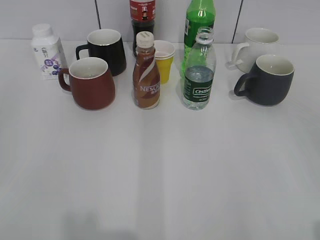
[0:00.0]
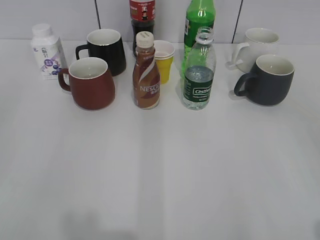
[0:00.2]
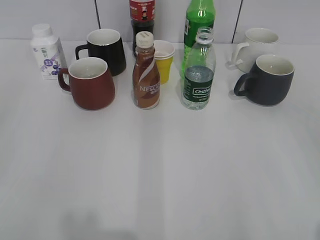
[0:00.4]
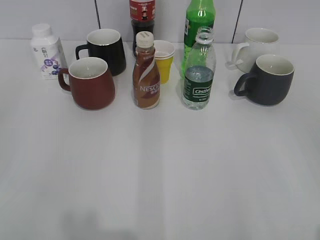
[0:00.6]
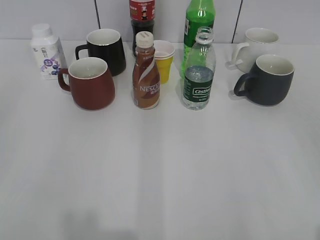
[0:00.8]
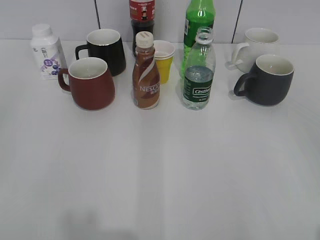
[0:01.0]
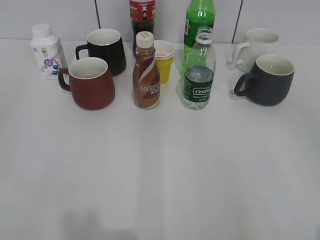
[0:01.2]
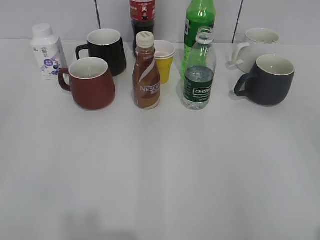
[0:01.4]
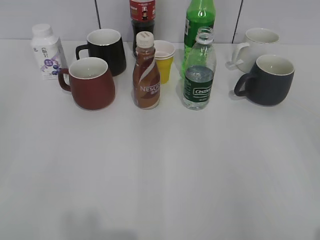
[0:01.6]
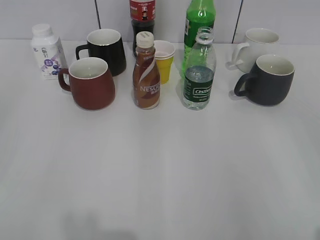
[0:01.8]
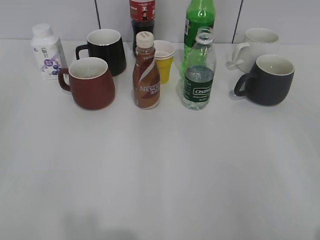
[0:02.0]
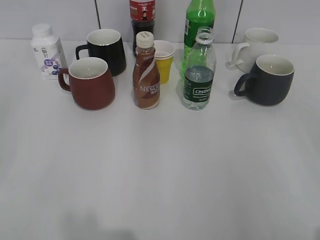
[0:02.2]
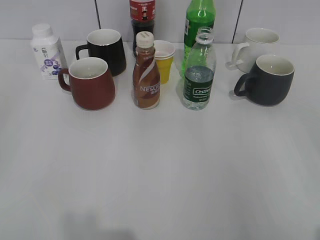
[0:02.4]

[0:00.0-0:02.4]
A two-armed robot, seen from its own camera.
0:01.2 to 0:02.4: The two grippers keep their place.

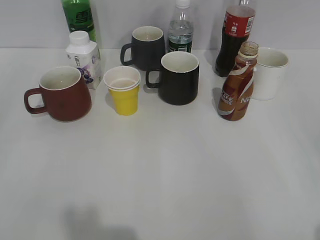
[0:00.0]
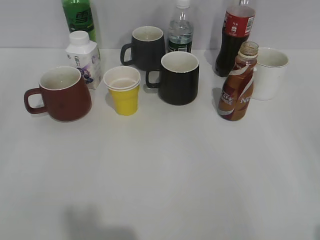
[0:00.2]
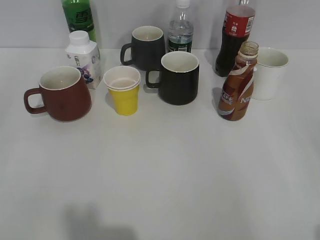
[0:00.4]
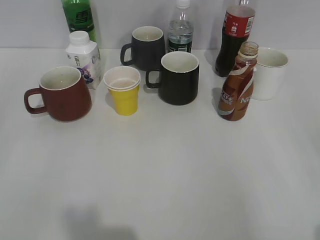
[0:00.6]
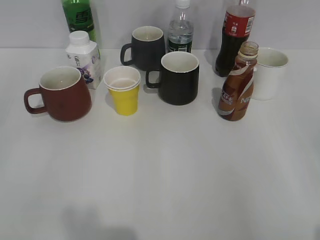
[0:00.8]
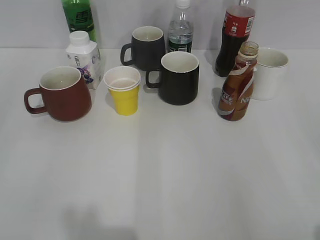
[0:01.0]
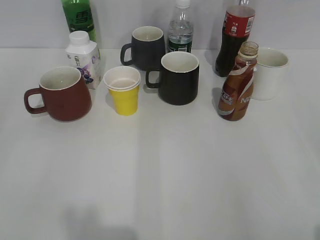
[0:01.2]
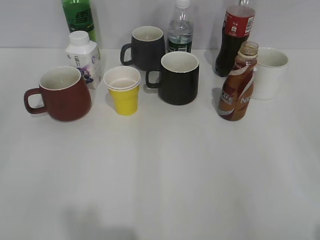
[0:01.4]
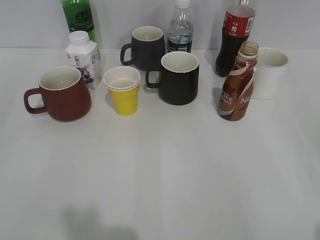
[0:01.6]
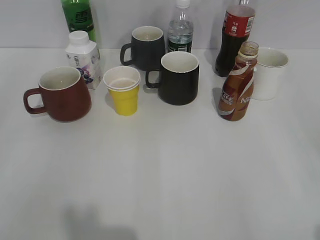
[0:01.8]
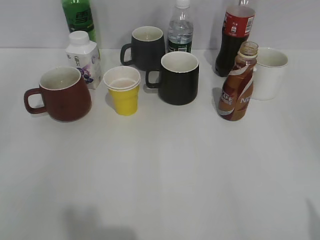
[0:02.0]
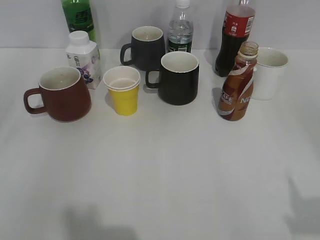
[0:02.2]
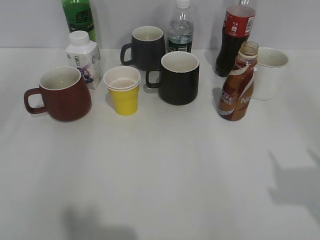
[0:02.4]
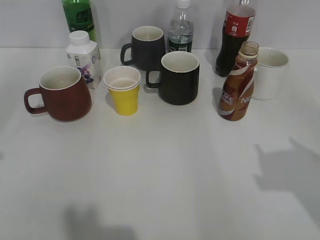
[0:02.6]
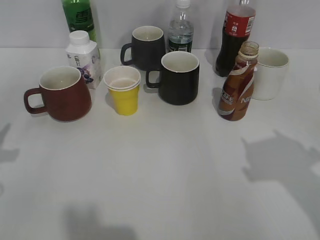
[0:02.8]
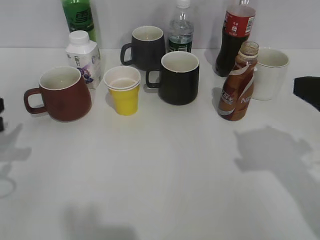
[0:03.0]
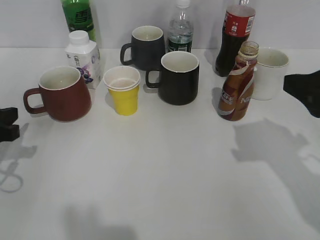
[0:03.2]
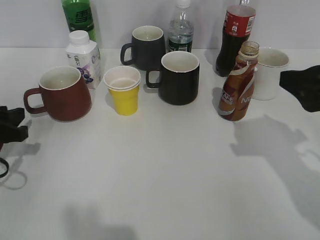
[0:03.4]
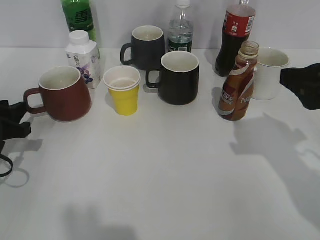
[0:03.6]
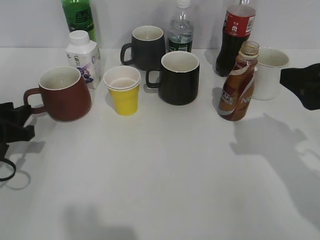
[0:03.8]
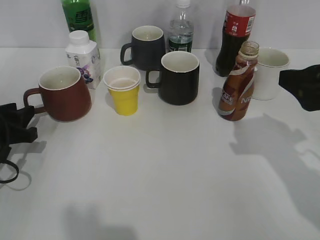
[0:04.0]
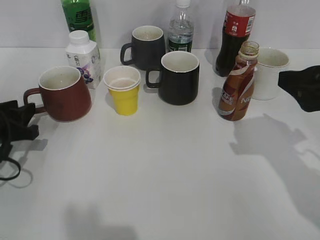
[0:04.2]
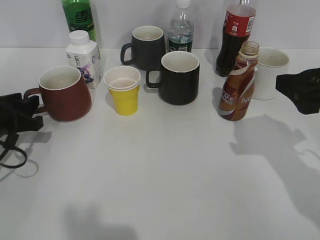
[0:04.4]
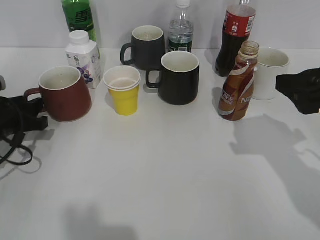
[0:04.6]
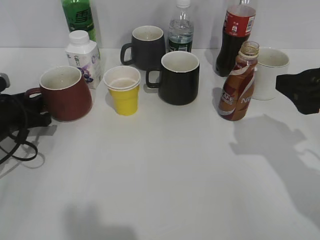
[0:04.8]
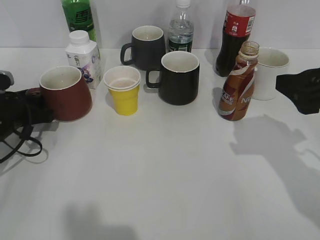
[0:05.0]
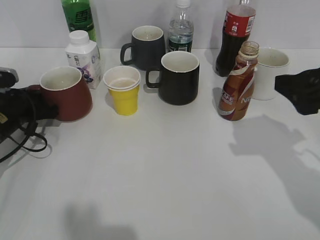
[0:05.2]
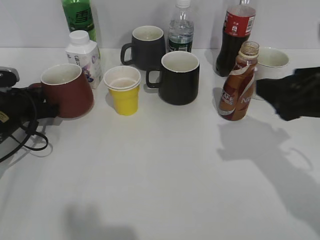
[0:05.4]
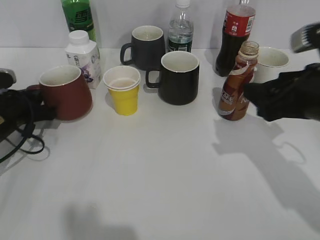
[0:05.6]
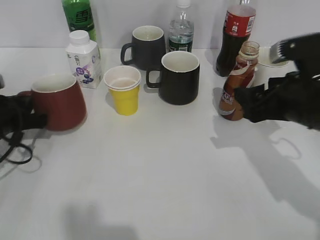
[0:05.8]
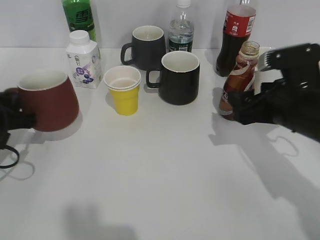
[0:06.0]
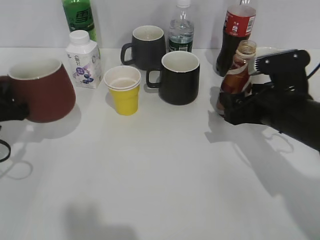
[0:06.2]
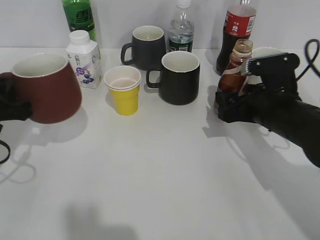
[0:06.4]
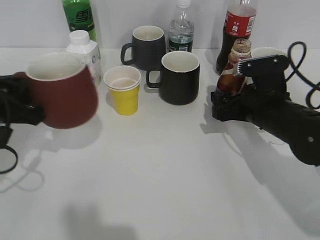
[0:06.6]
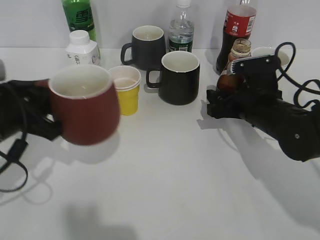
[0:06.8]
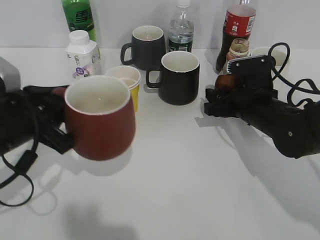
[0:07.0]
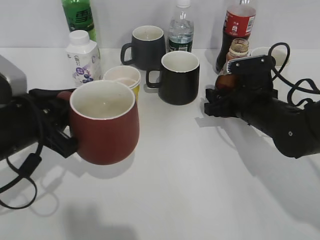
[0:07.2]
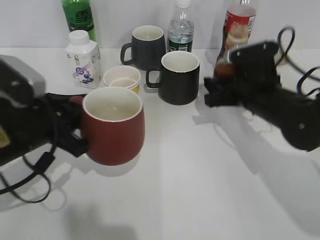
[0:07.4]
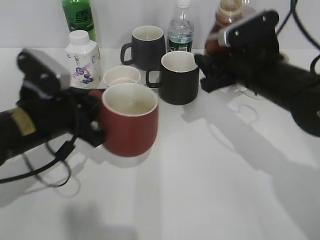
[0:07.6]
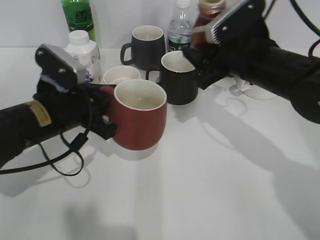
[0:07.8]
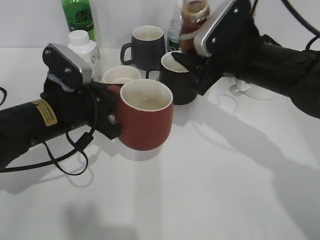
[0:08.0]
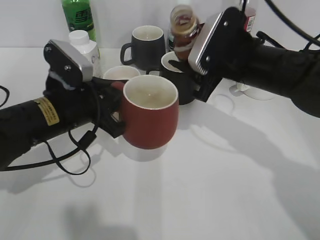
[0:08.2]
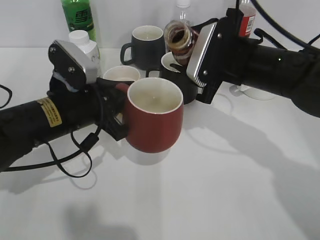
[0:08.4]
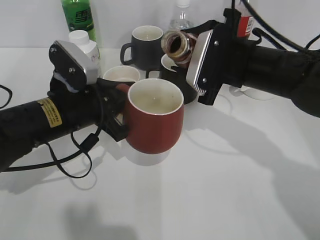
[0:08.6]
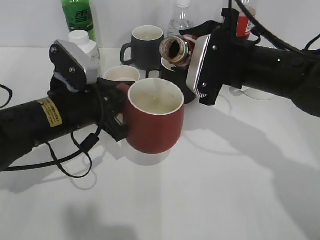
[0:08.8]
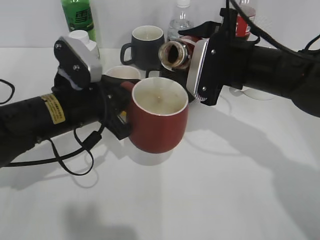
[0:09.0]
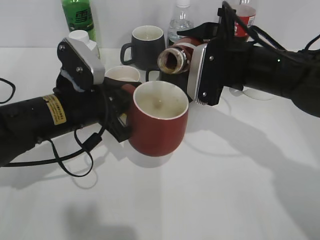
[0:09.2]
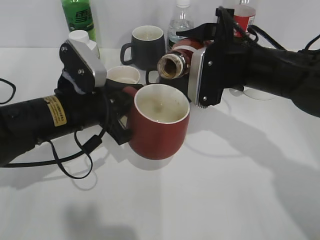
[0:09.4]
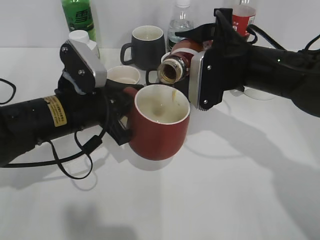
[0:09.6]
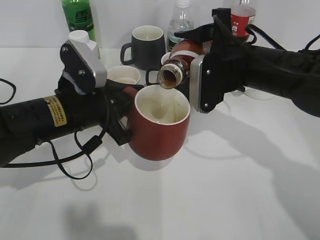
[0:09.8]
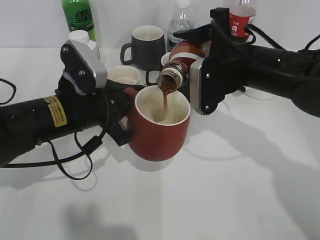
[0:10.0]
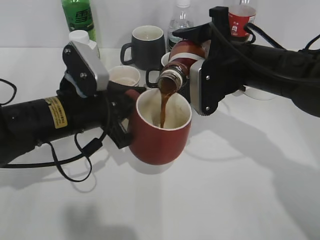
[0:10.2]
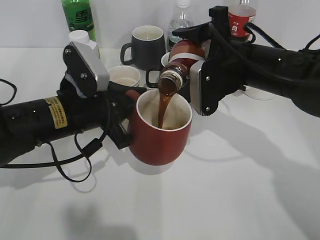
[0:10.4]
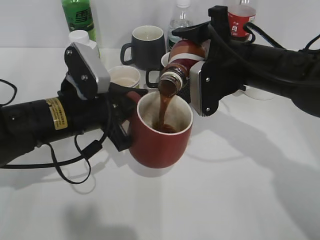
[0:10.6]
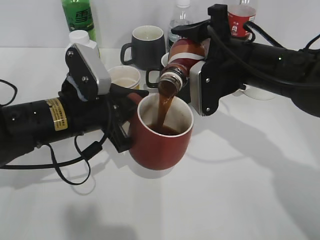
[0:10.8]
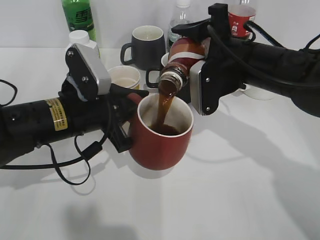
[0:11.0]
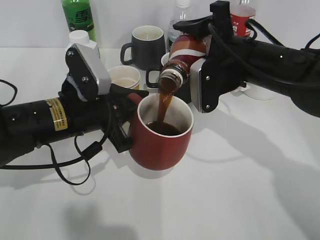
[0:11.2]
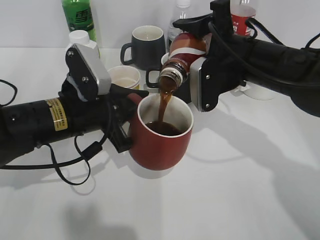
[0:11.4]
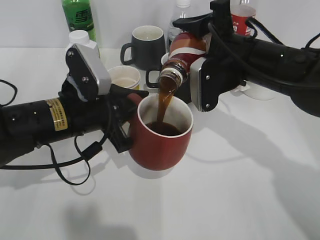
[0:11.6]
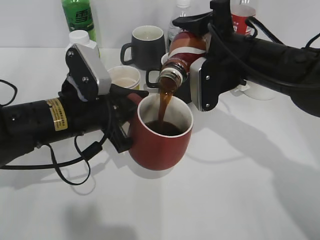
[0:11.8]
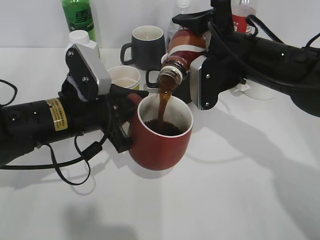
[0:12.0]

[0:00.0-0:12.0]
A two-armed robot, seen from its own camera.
Step, 0:01.8 to 0:05.4: Grasp the red cup with left gripper.
Step, 0:05.6 to 0:07.0: Grasp the bottle with coffee with right gripper.
0:01.6 to 0:03.0: The two grippers go some 20 cm forward.
0:03.0 to 0:04.4: The left gripper travels downward and forward by about 10 cm, while the right gripper changes place by approximately 5 cm.
0:04.4 to 0:06.0: The left gripper closes its fingers; the right gripper is displaced downward and forward by some 10 cm.
0:06.0 to 0:07.6: The left gripper goes approximately 10 cm to the right. Meanwhile the right gripper heads forward, covering some 5 cm, goes downward and returns, about 5 cm each way, and closes.
0:10.4 to 0:12.0: The grippers move only a little.

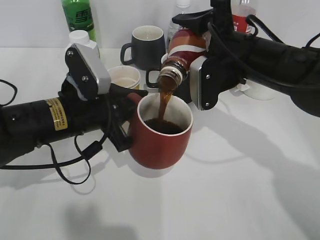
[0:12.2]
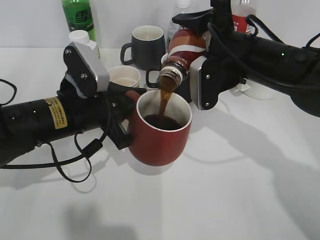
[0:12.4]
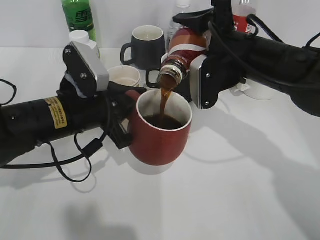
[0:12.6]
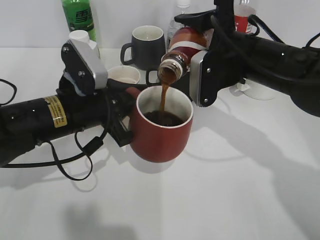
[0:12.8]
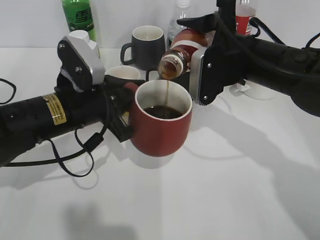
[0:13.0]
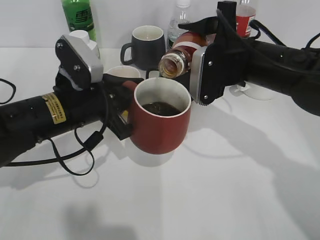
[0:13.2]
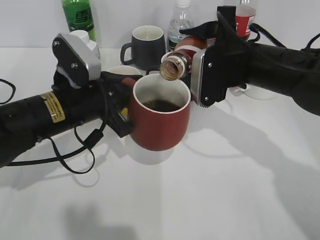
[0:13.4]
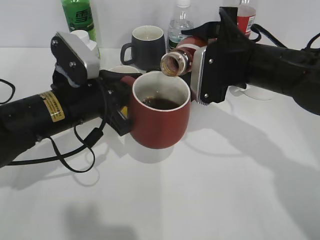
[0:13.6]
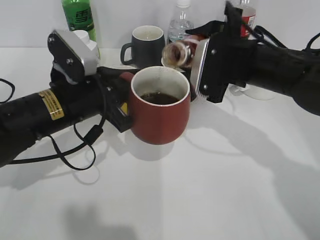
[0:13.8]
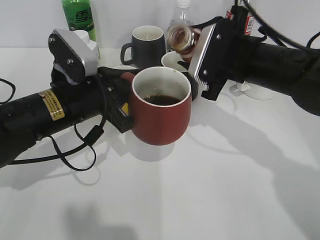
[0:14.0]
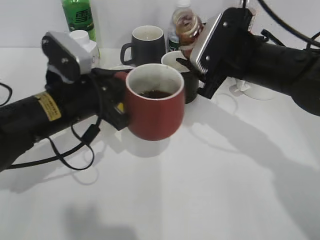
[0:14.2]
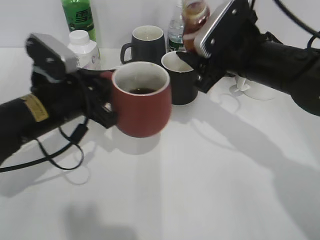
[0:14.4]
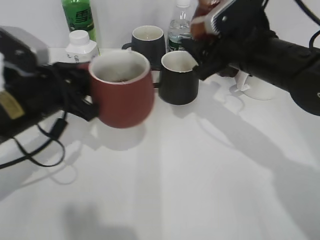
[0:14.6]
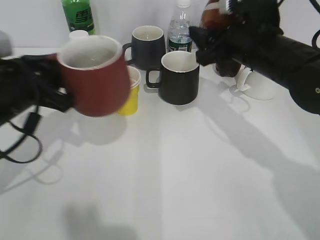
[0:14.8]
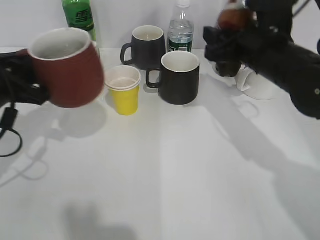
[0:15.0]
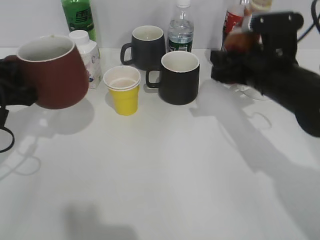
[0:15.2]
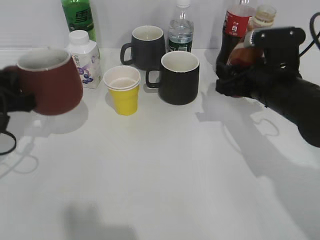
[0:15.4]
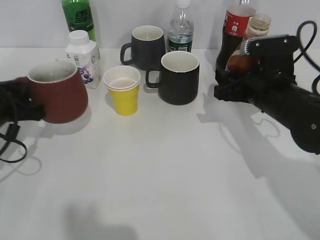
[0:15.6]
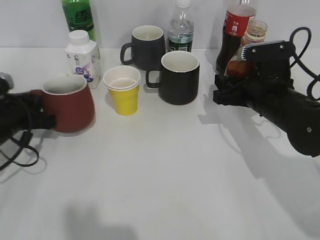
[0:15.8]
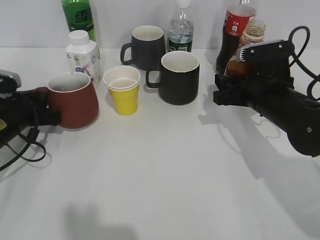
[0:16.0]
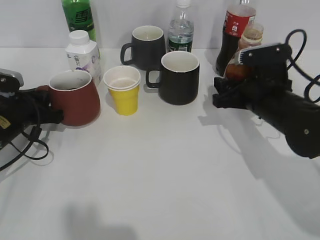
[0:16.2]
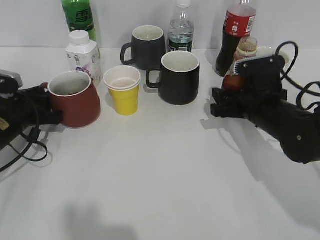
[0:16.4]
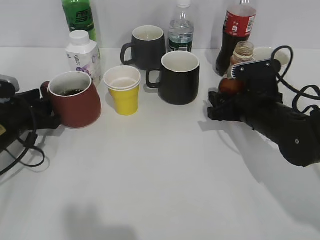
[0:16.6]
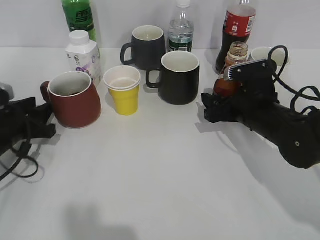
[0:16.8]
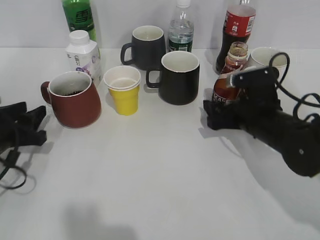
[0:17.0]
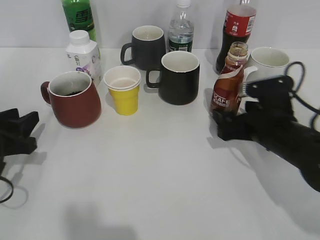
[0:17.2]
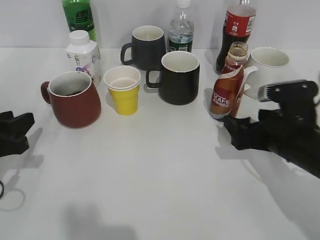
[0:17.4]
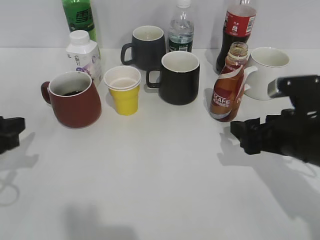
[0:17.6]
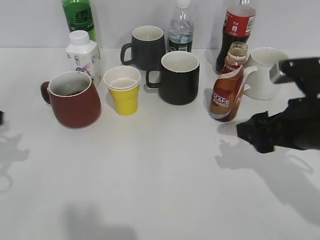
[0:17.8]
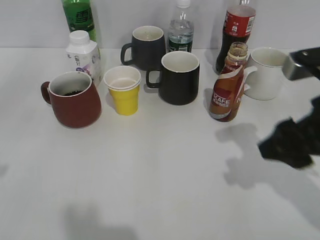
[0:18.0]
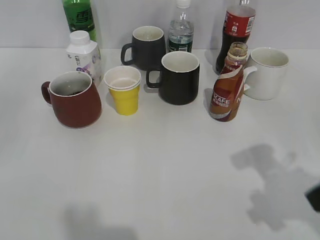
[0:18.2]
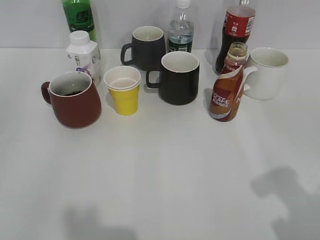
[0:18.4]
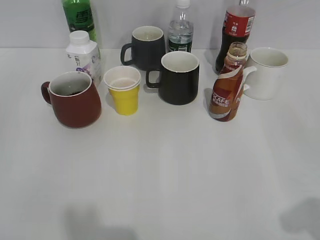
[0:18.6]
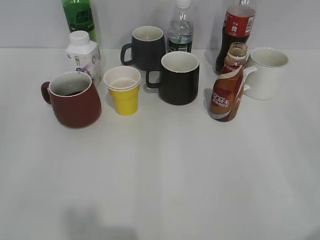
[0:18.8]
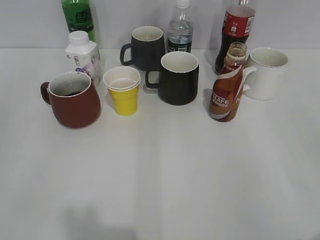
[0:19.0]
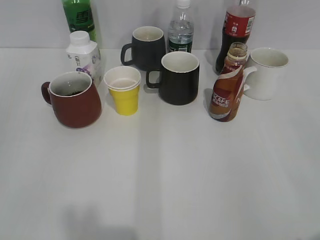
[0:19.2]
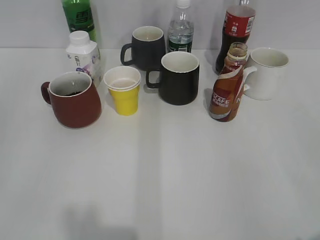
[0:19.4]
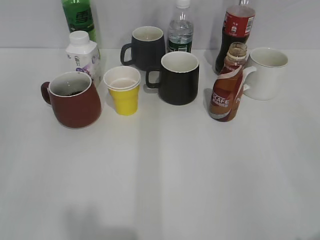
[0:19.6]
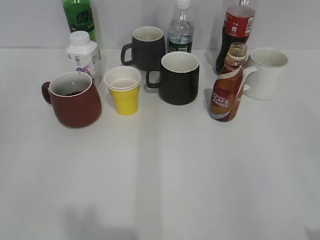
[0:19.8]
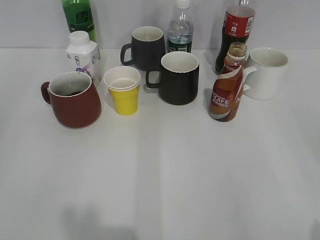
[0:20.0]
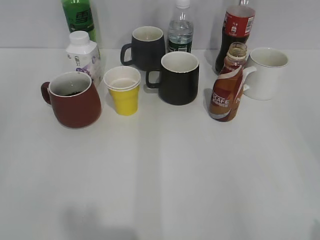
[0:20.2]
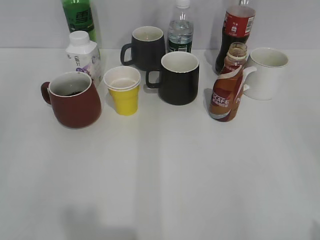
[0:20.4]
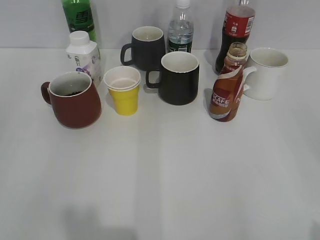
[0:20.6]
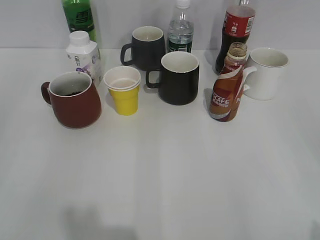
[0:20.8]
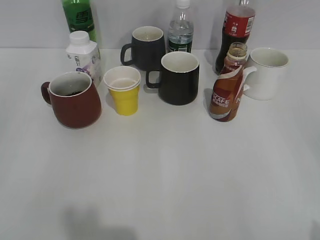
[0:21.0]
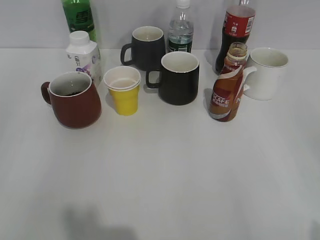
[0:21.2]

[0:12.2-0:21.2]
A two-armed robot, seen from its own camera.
Step, 0:14.2 to 0:17.0: Place the coffee bottle on the table with right gripper.
0:13.8 to 0:15.2: The left gripper is displaced to the left by approximately 15 cm.
0:15.2 to 0:16.6: Both grippers travel together downward, some 10 cm. The left gripper opens up.
0:16.6 to 0:18.2: The grippers both shift backward and upward by some 25 cm. The right gripper opens up.
0:18.2 to 0:19.8: The right gripper shifts roughly 15 cm backward and to the right.
0:19.8 to 0:21.2: There are only small adjustments of the grippers.
